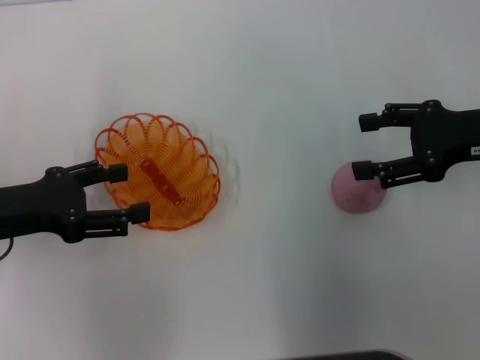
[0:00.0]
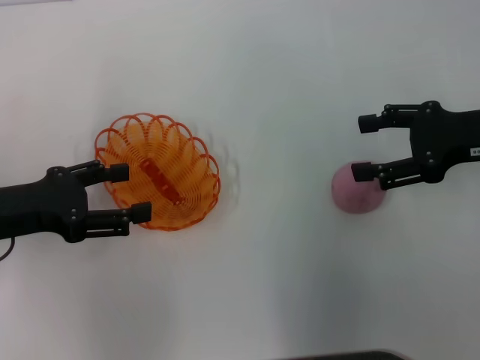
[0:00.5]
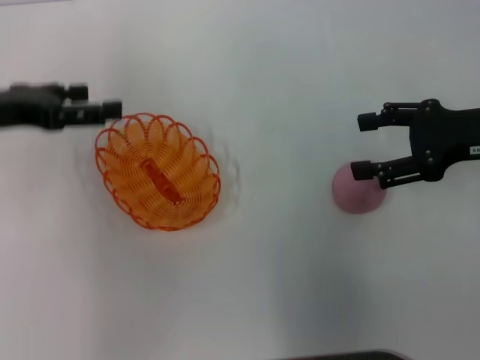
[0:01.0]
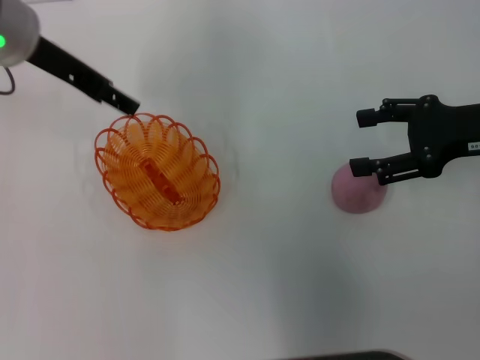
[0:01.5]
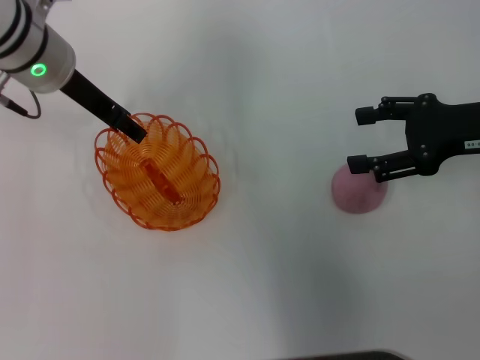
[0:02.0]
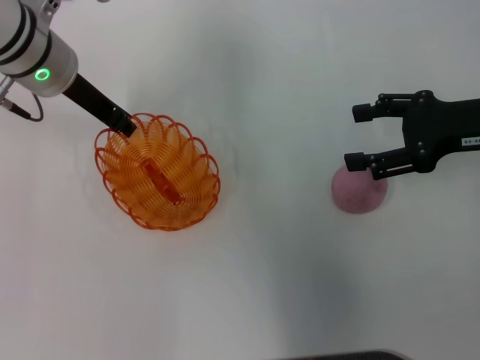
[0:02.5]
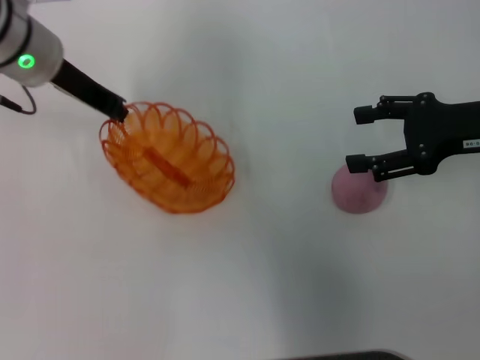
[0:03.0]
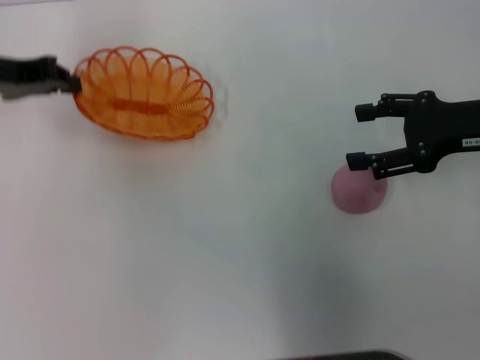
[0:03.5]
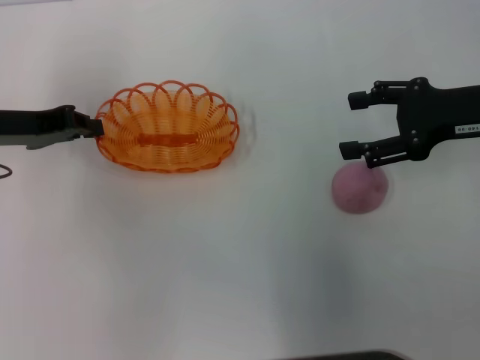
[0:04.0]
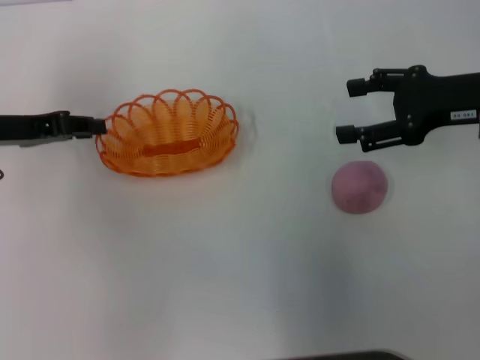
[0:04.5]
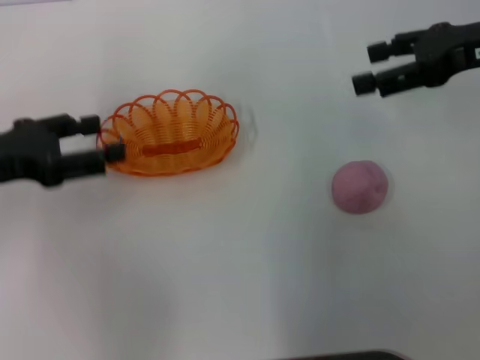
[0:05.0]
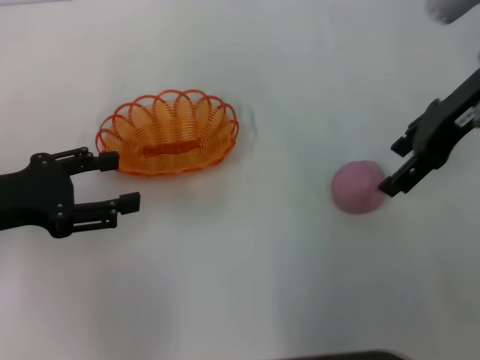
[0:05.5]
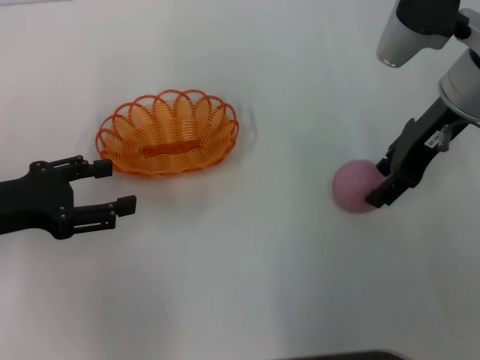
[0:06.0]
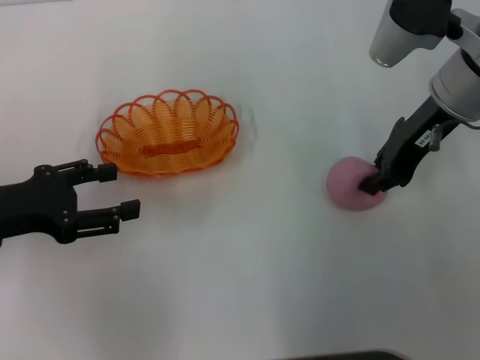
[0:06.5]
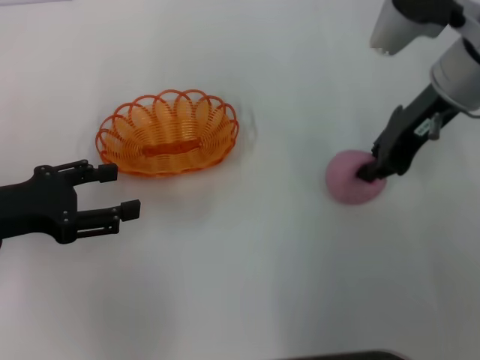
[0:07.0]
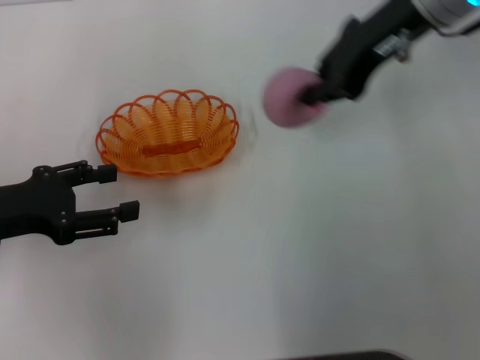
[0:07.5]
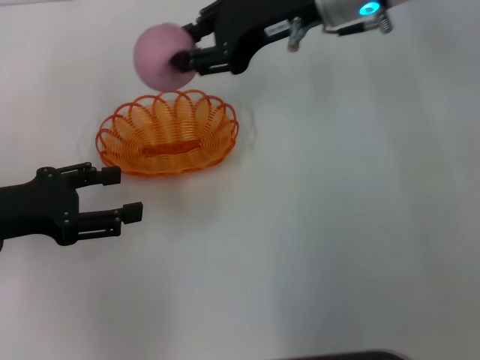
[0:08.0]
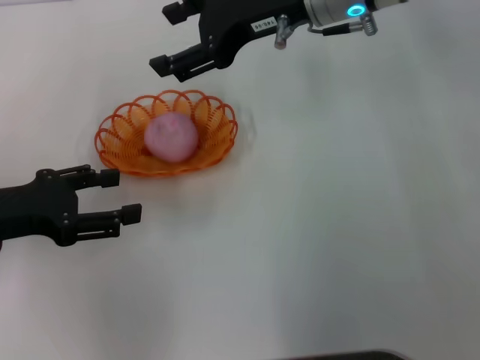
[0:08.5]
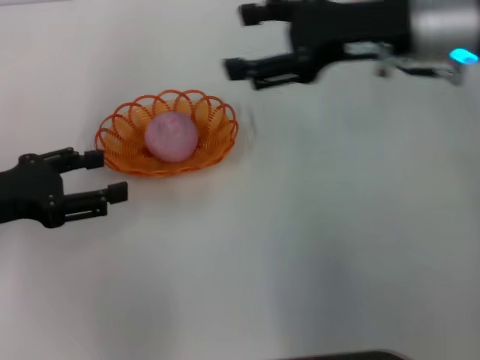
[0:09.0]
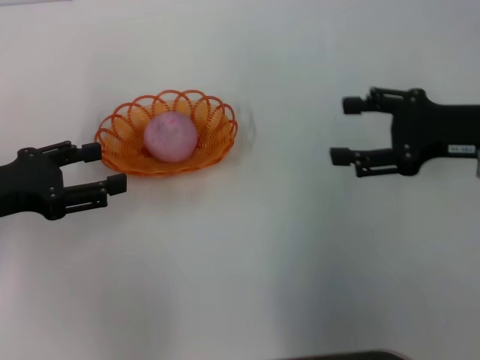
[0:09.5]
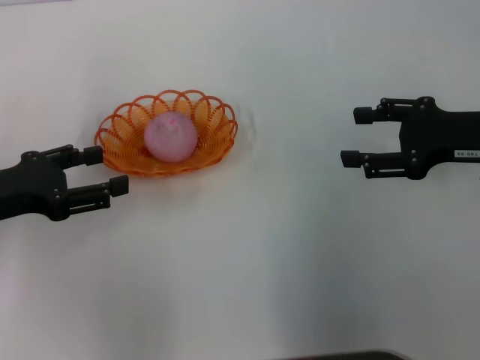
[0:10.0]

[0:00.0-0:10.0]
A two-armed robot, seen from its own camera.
Step, 0:00.0 to 0:03.0: Pick up the basket with the left gripper.
Step, 0:03.5 to 0:05.5: Place the basket in the center of view with the left gripper.
Step, 0:06.0 to 0:07.5: Pick up the peach with the right gripper.
Step, 0:08.0 to 0:08.5: Place the peach into the basket with the right gripper.
0:00.0 to 0:02.0: The left gripper is displaced forward, to the right and upward by roughly 20 cm.
0:02.0 to 0:04.0: The left gripper is displaced to the left and backward by some 10 cm, and closes its fingers.
0:04.0 to 0:06.0: The left gripper goes roughly 10 cm backward, and opens, while the right gripper moves to the left, roughly 5 cm.
0:06.0 to 0:08.0: The right gripper is displaced to the left and upward by approximately 10 cm, and closes.
0:08.0 to 0:10.0: The right gripper heads to the right, backward and downward, covering roughly 25 cm, and opens.
